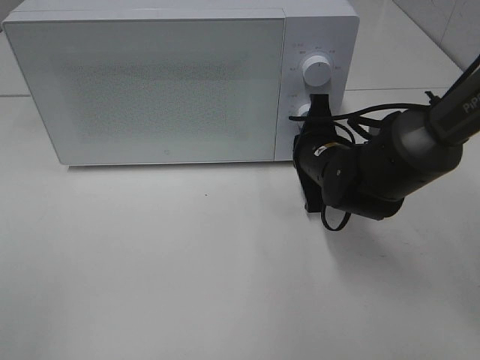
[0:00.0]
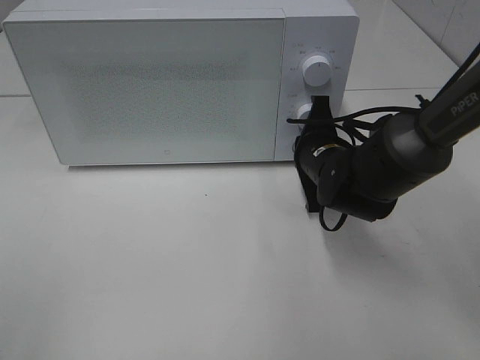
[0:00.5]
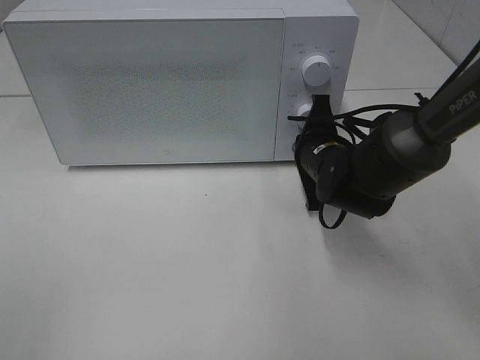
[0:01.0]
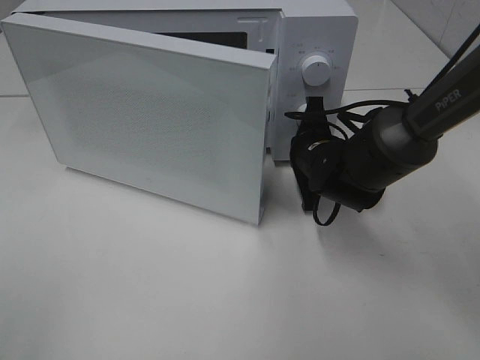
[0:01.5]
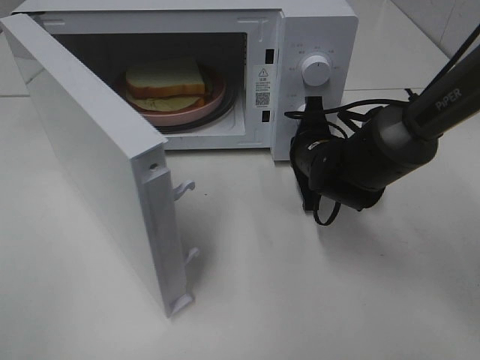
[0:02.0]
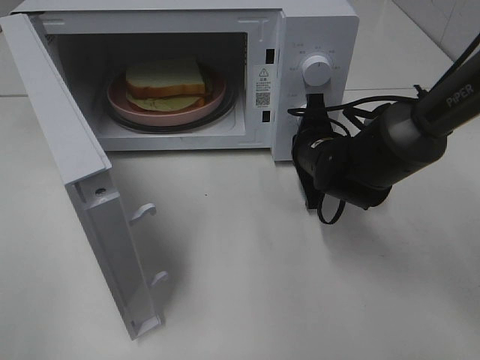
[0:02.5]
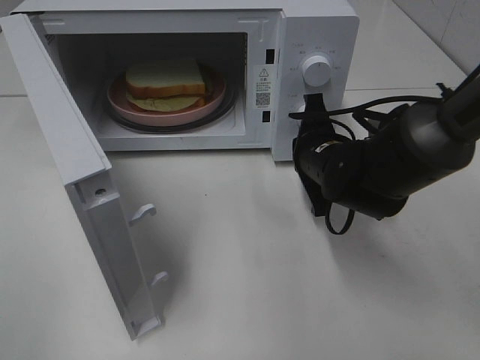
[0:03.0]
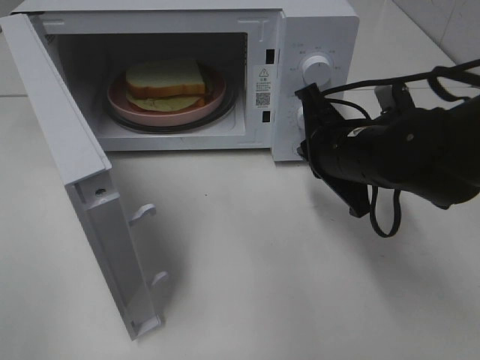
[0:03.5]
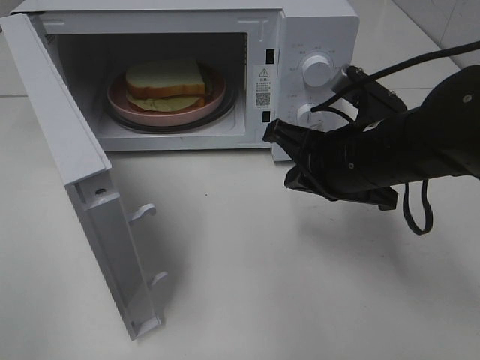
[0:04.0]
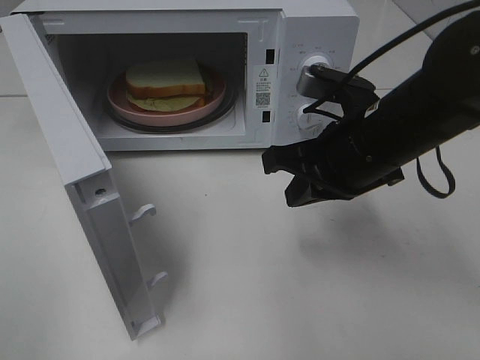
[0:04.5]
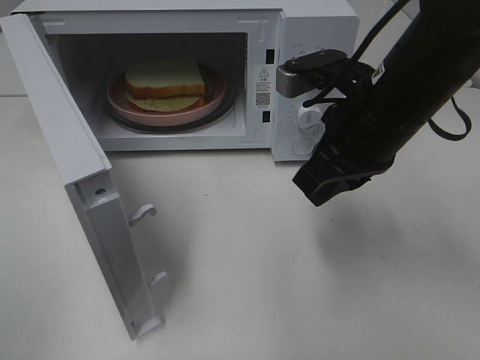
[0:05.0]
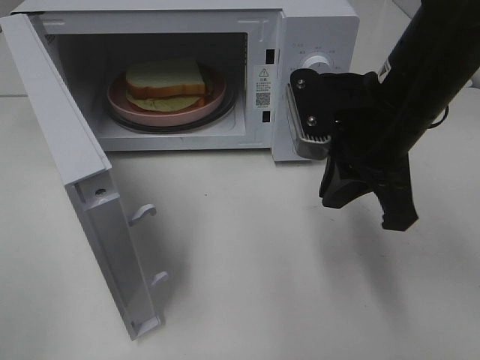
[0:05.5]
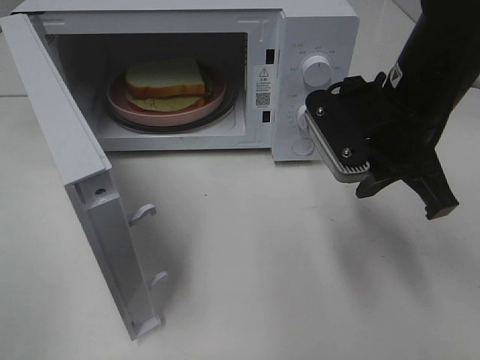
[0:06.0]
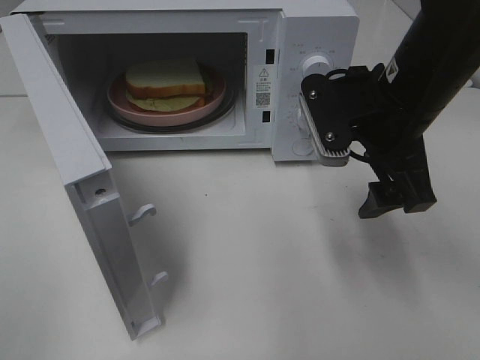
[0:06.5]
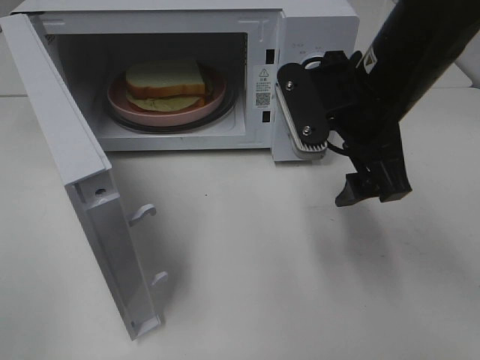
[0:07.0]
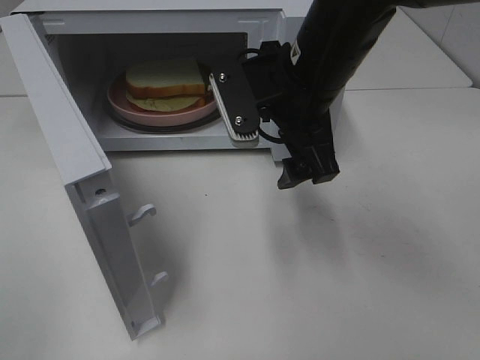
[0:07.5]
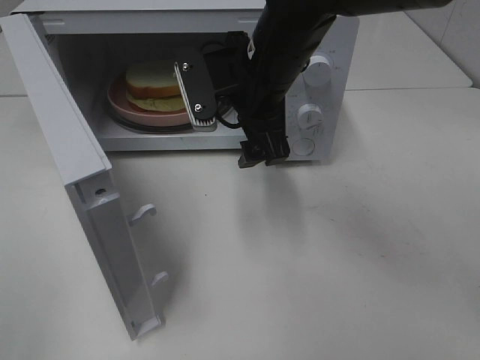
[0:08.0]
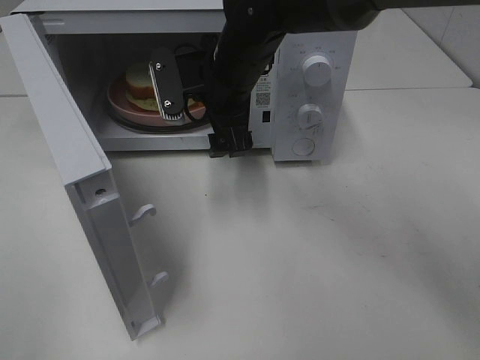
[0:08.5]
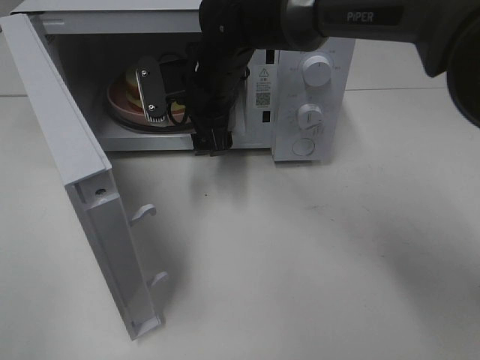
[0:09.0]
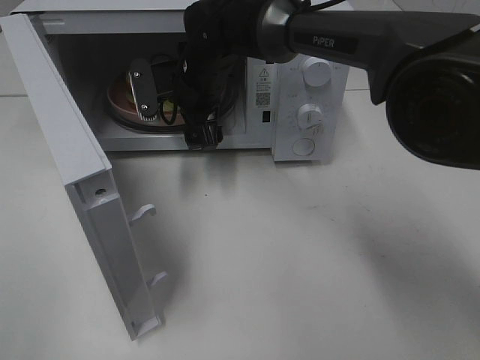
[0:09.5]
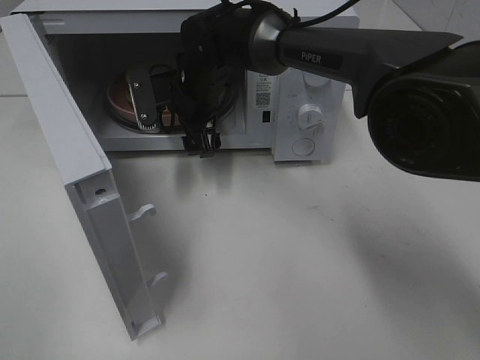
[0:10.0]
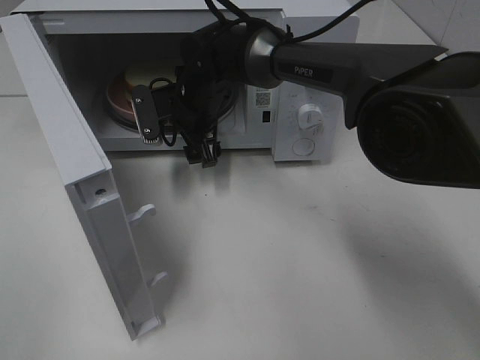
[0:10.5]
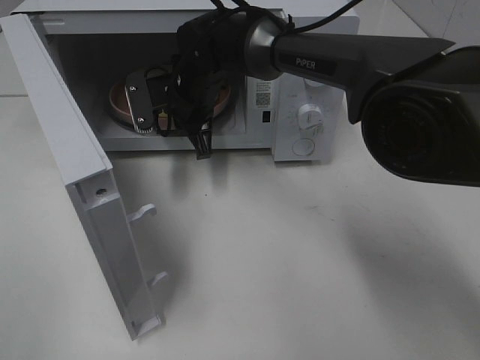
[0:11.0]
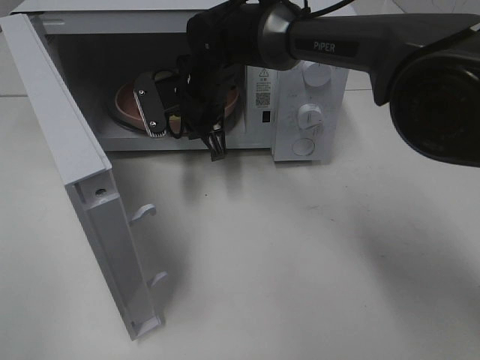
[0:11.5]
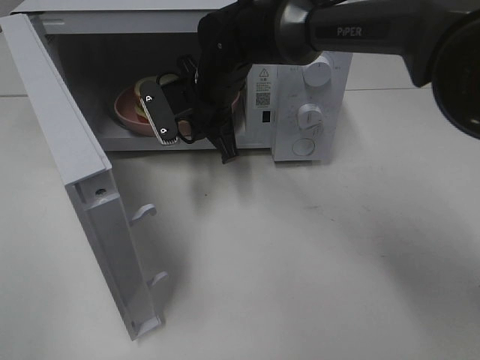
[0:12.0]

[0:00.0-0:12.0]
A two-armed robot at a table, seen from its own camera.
Task of the whole recording: Heat Sandwich.
Step, 0:00.0 to 0:02.5: Right hand: press the switch.
Step, 0:03.0 to 0:11.0: Right hand: grab the plate with the sandwich.
0:02.0 to 0:04.0: The right gripper heads backward and upward, covering roughly 15 cm.
0:04.0 to 0:06.0: The right gripper heads upward, covering roughly 5 cm.
0:06.0 to 0:08.0: The right gripper is displaced to the left and forward by some 15 cm, and opens up.
0:08.0 to 0:10.0: The right gripper heads forward, to the left and downward, covering approximately 15 cm.
0:10.0 to 0:12.0: The right gripper closes up.

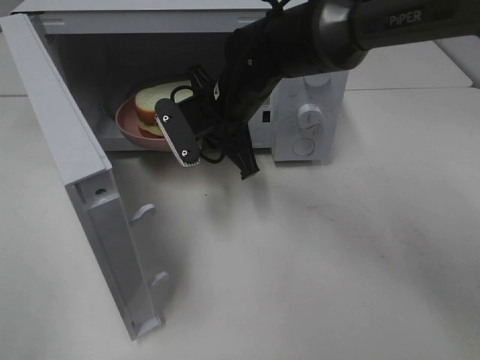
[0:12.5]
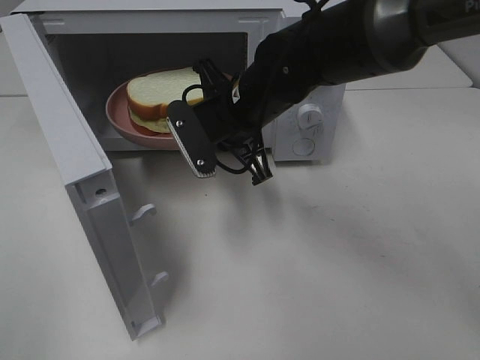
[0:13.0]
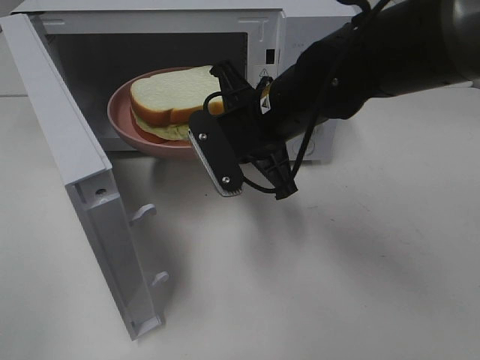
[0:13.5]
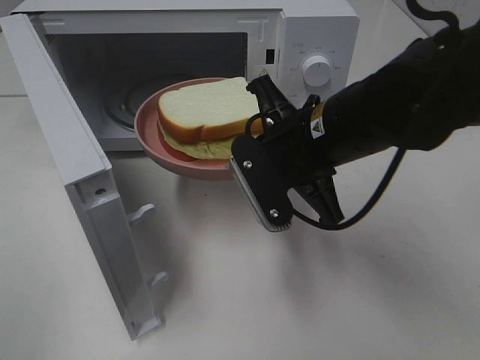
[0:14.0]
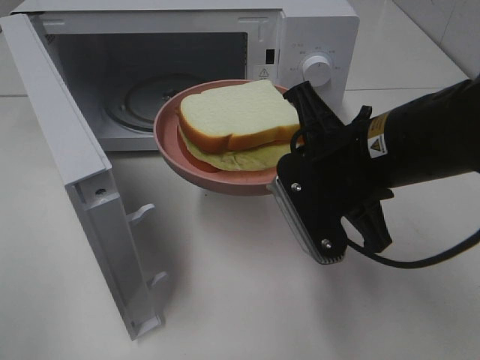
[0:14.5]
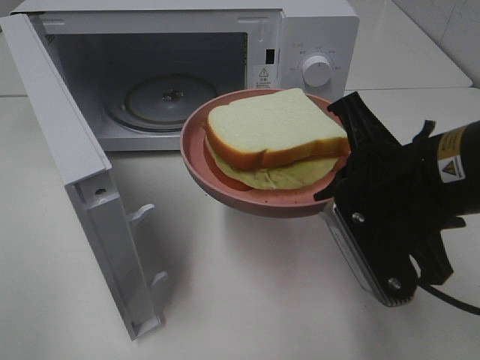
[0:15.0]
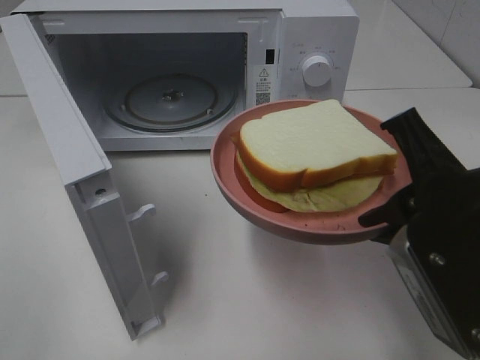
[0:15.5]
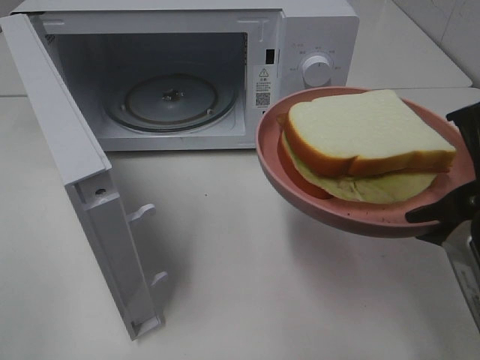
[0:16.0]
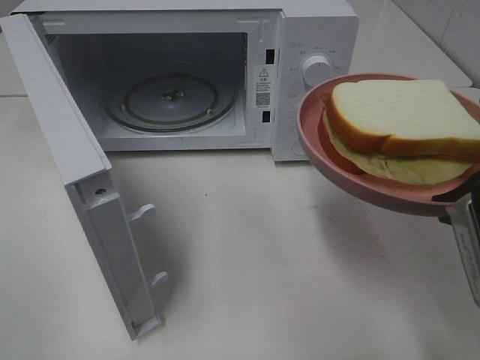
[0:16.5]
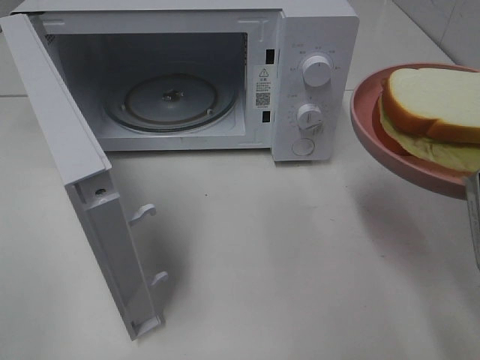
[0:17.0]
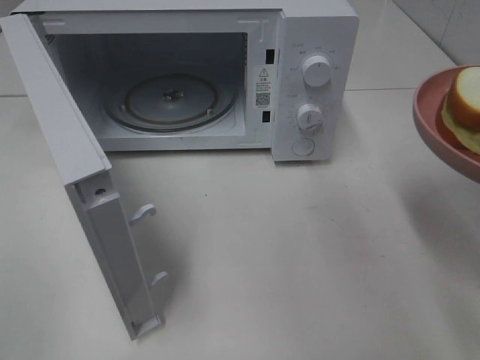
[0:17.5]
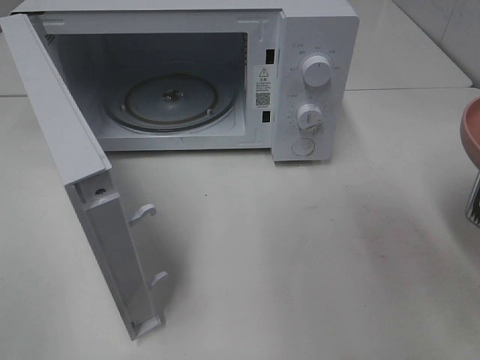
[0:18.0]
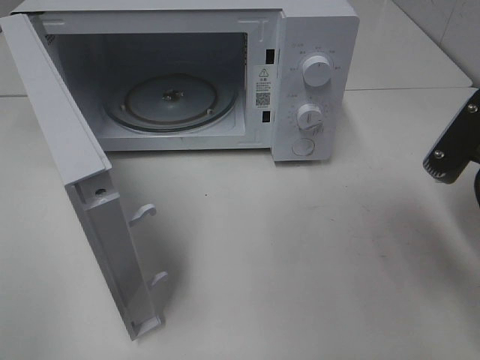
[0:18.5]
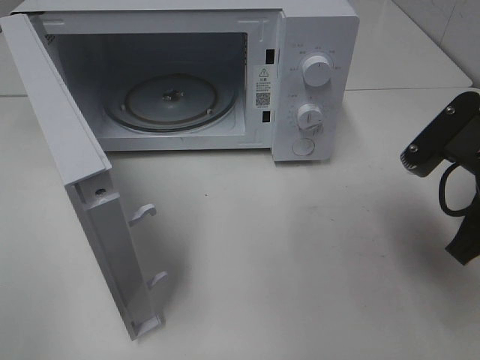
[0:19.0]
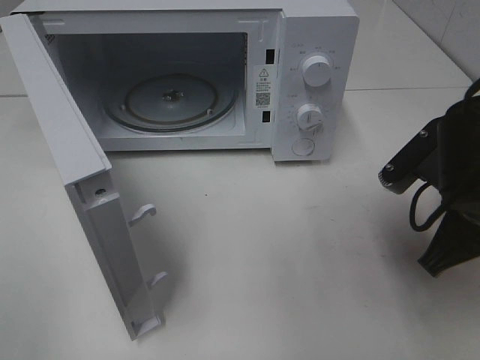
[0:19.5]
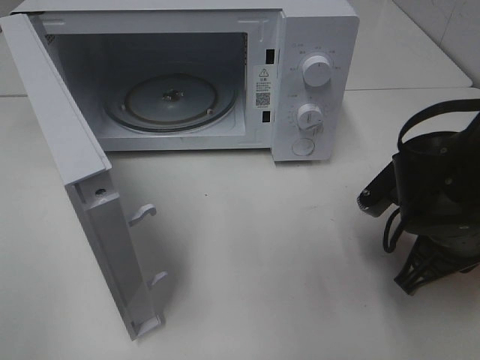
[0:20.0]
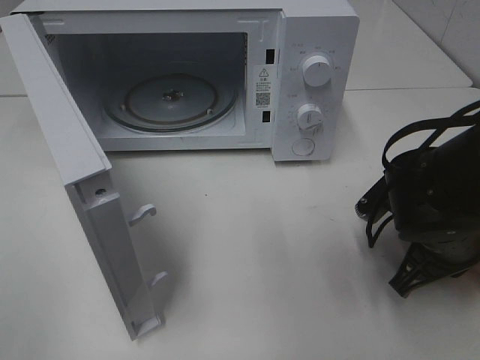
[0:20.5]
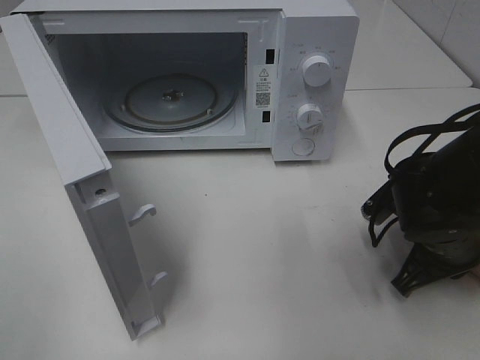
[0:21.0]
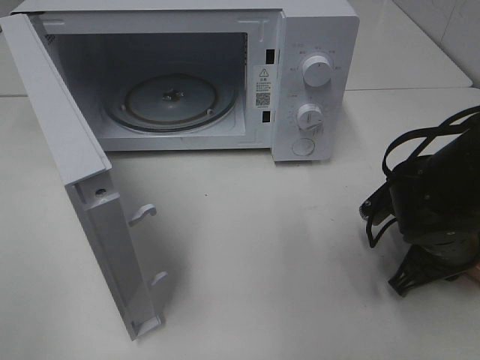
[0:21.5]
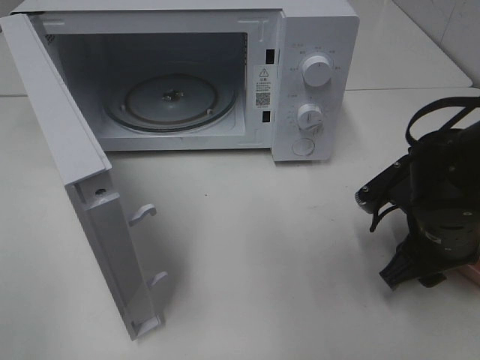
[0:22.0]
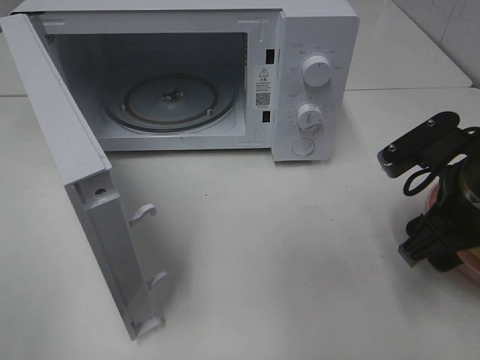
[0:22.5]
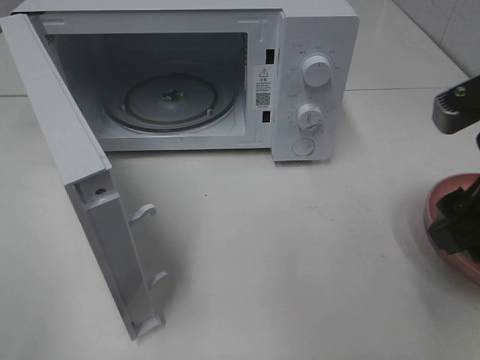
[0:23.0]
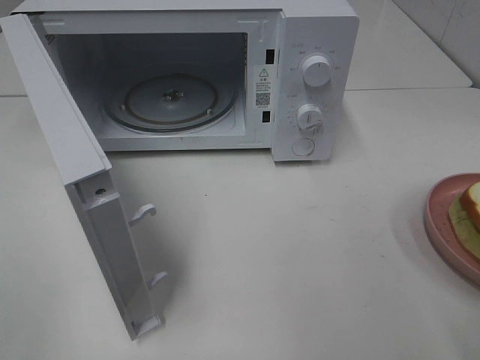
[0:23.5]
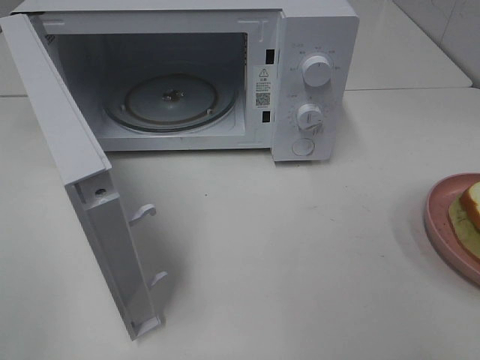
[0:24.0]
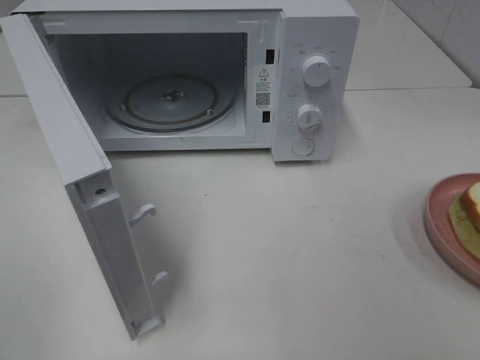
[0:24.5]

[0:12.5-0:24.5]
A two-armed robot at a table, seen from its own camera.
Task of the whole recording: Heat Sandwich.
Step, 0:12.5 to 0:23.0: Right hand: place the plate on the table.
0:12.5 to 0:14.5: The right gripper shifts roughly 20 cm backward and to the right.
0:14.5 to 0:16.5: The right gripper is displaced to the right and backward by approximately 15 cm.
0:16.5 to 0:18.5: The right gripper moves roughly 5 cm.
0:18.5 to 0:20.5: The right gripper goes roughly 10 cm downward.
0:20.5 to 0:22.5: The right gripper moves upward, some 10 cm, and opens its fingers.
0:22.5 to 0:24.5: The right gripper moves backward, upward and to the right, some 25 cm.

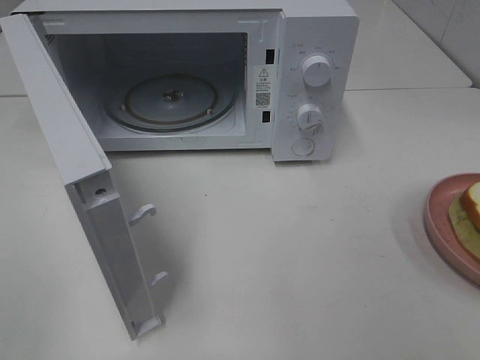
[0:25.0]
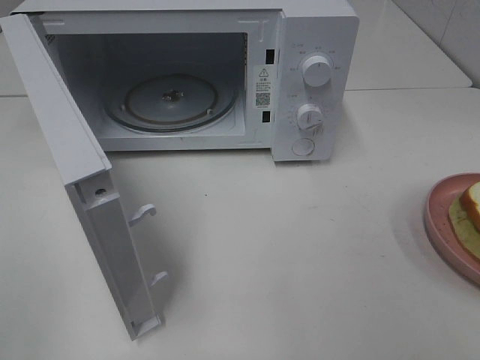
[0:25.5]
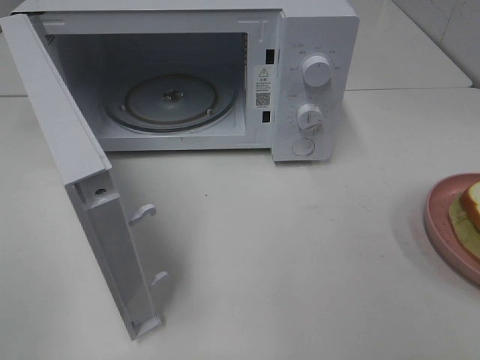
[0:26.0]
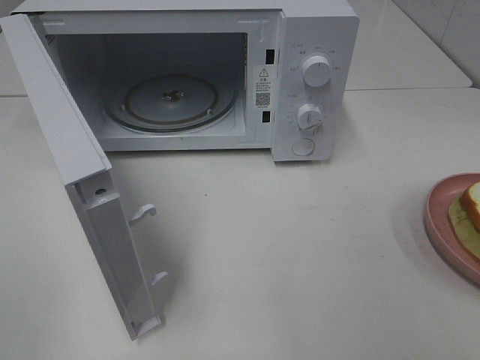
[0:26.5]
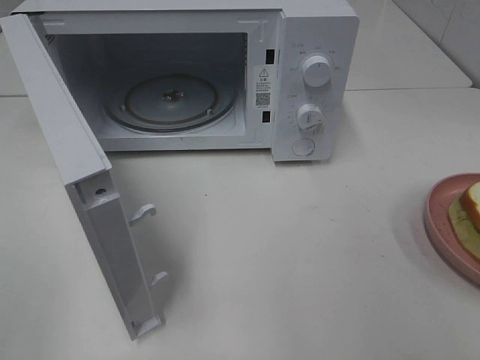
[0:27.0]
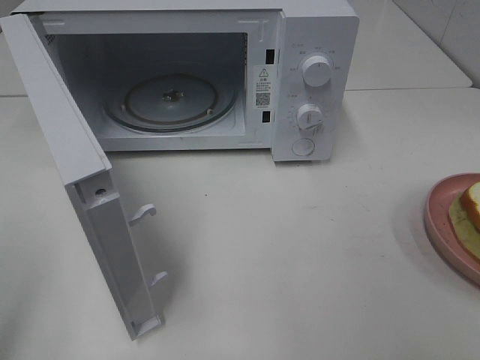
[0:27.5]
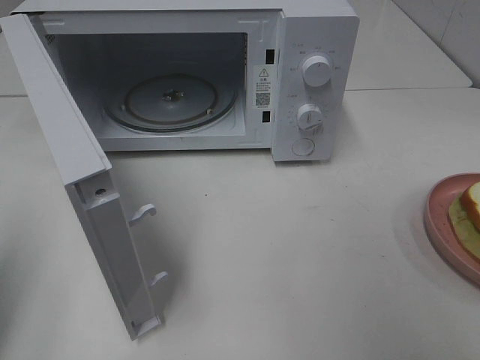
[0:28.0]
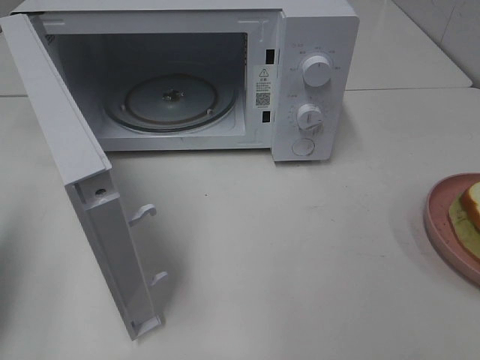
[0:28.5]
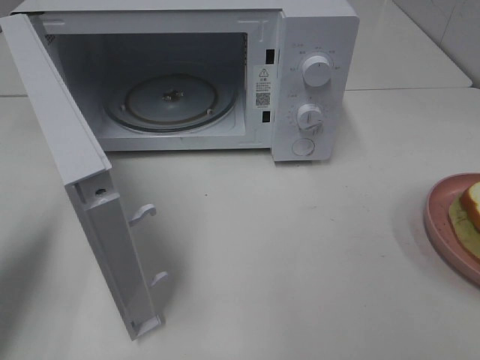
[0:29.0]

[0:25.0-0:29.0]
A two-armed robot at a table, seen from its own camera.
Task of the whole recording: Heat Sandwich.
0:25.0 to 0:27.0: Both grippers stay about where they are.
0:27.0 to 0:29.0: The left gripper travels forward by approximately 20 cm, and closes.
